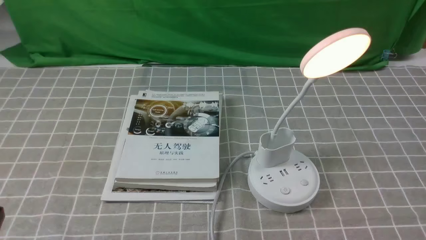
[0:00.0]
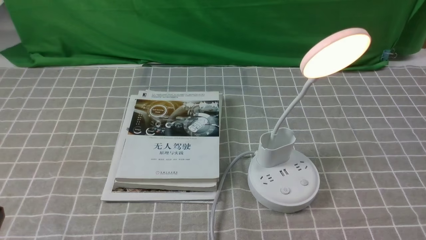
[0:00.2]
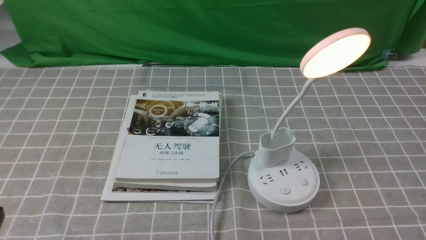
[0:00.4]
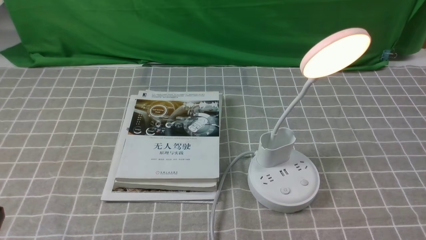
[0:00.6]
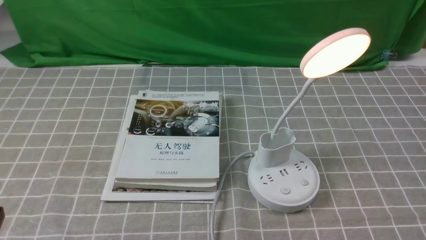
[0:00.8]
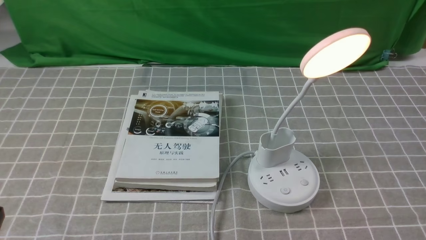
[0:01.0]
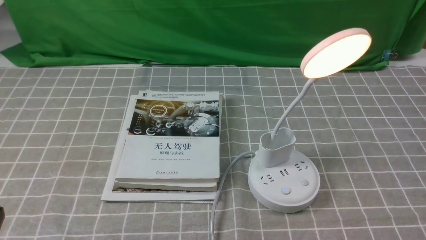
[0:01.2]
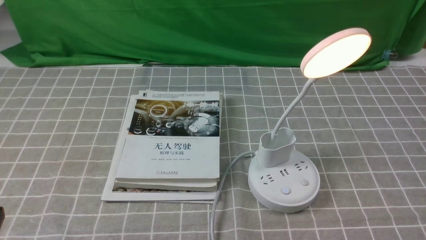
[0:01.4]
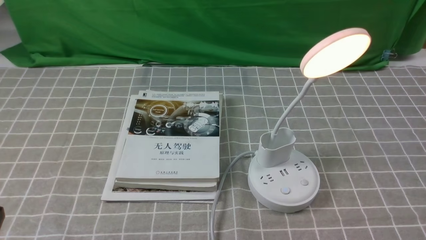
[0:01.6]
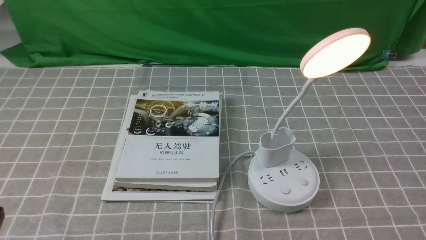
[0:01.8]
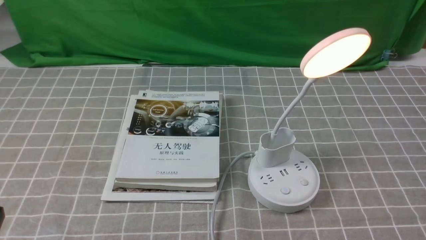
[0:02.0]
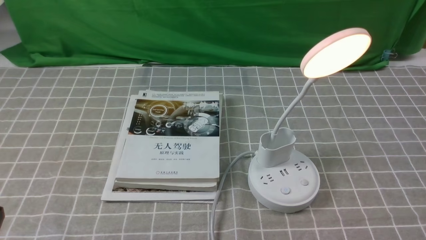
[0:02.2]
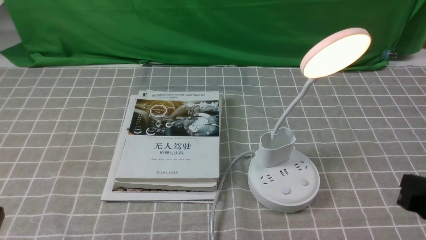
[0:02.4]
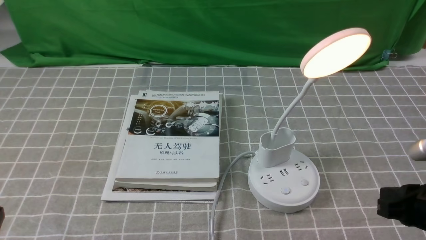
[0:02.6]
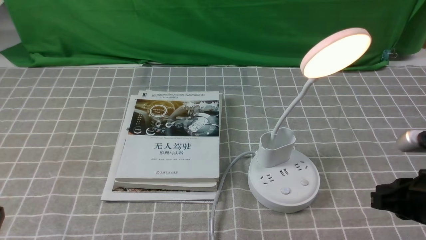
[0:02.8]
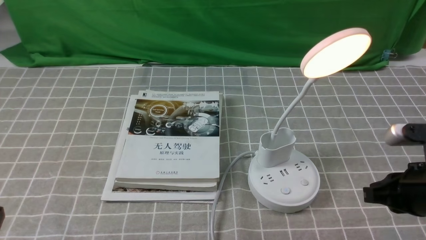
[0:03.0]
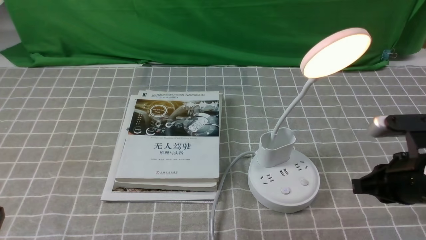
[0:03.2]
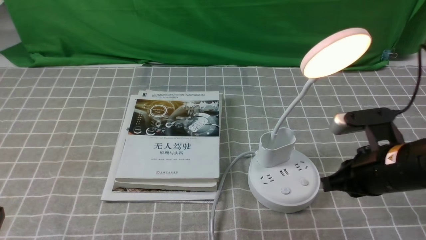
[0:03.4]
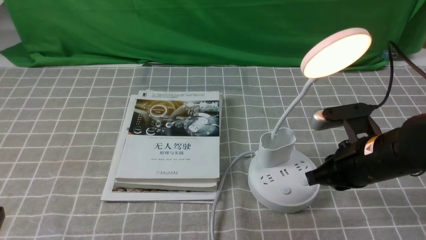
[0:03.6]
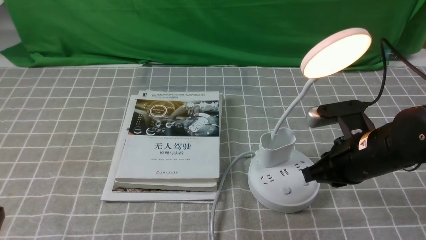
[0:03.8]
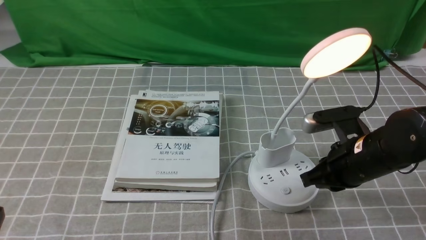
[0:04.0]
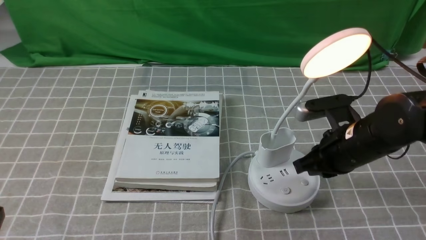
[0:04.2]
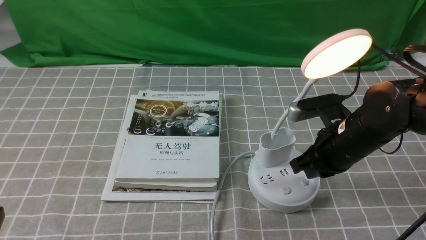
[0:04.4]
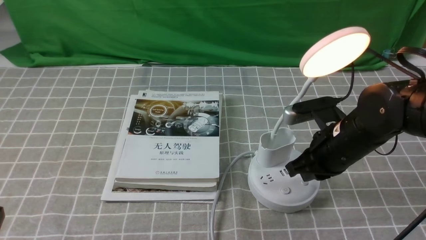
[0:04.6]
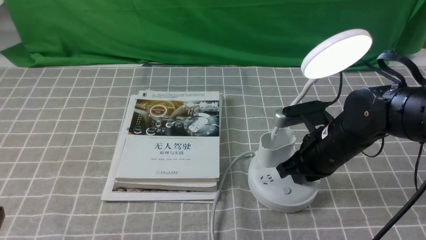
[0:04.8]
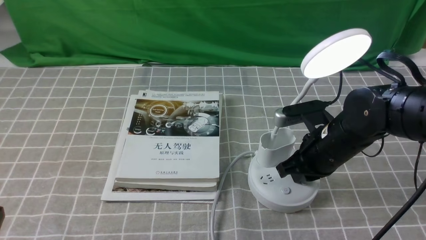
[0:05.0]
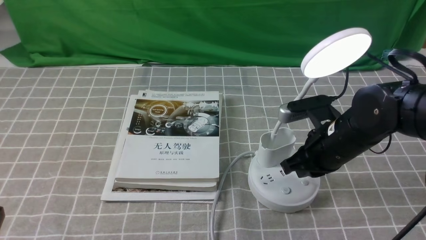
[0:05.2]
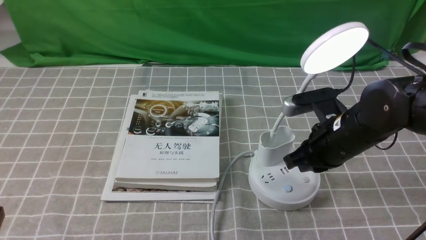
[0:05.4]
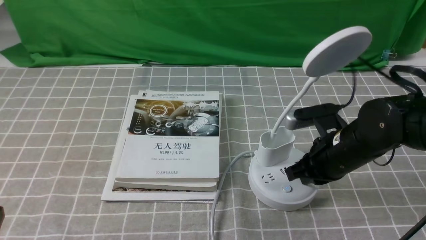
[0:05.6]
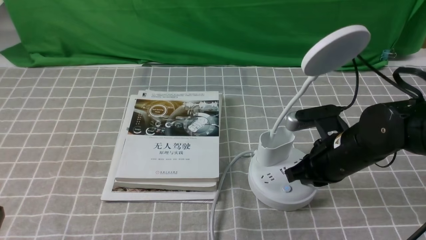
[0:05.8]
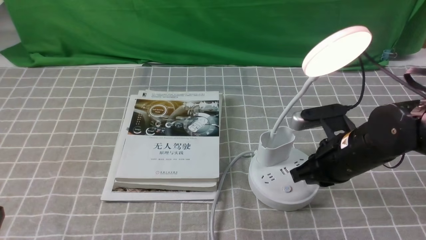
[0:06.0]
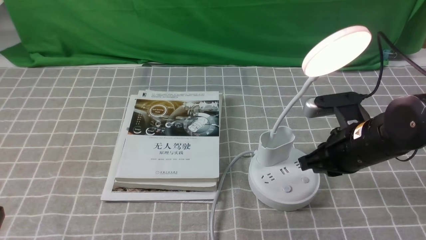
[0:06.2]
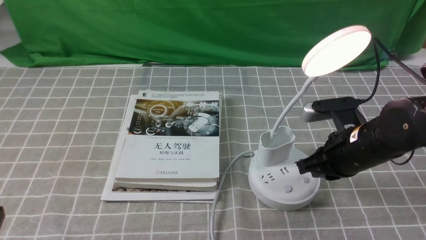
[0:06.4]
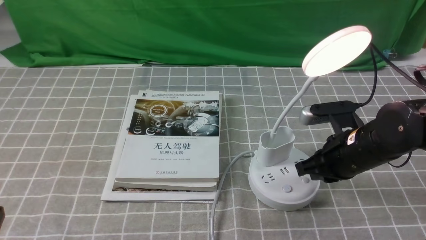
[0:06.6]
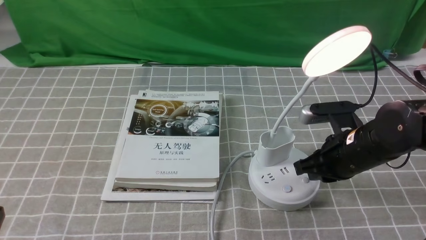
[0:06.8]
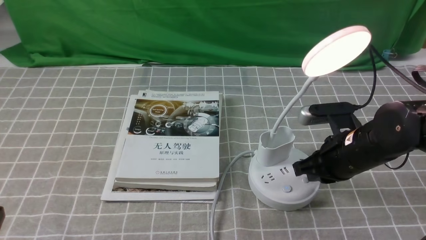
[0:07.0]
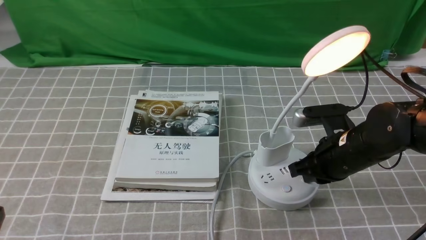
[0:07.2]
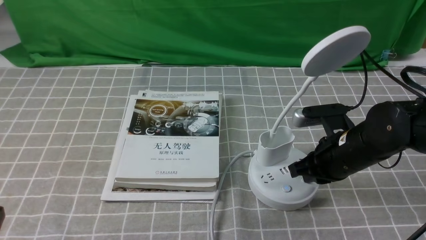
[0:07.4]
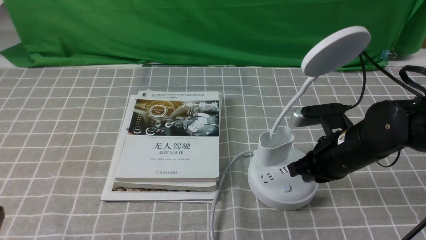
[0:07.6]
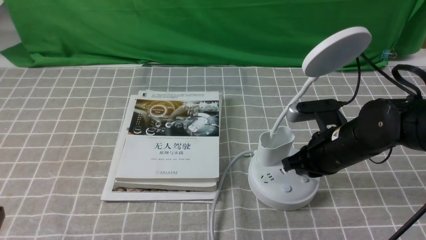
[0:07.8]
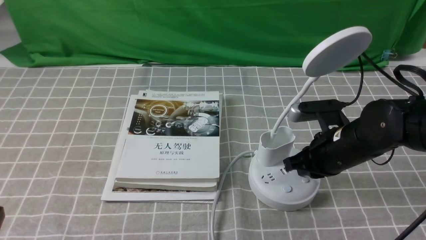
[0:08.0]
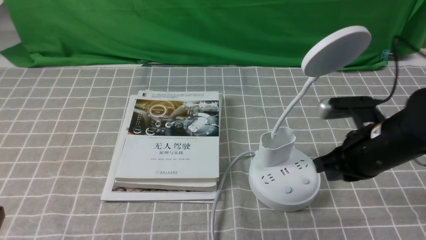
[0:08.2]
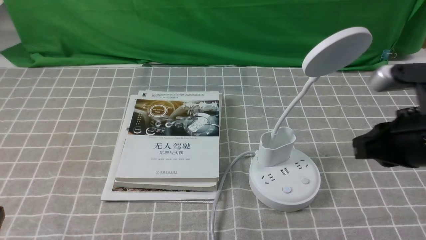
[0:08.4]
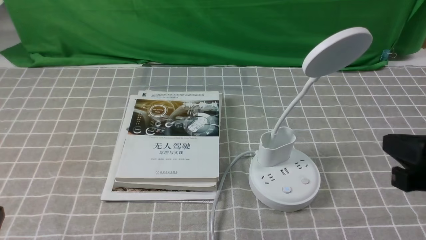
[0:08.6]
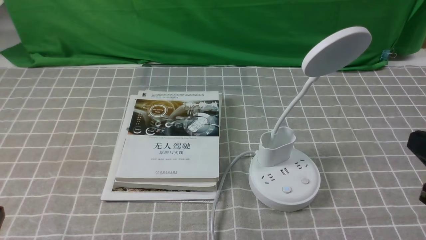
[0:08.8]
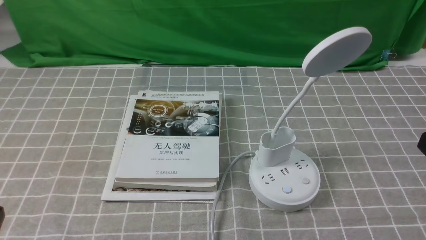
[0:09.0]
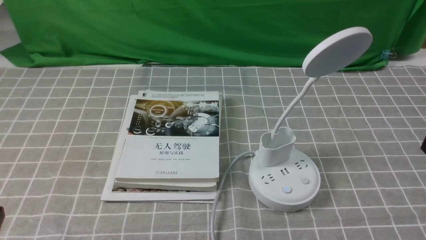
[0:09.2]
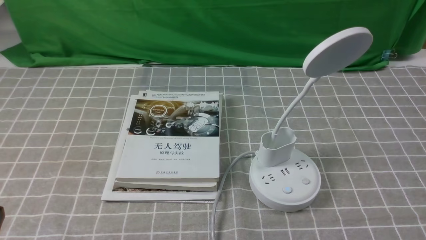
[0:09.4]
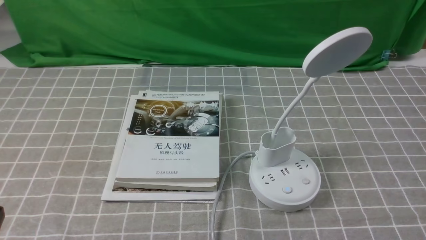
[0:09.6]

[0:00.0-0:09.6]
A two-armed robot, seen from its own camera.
Task of the whole recording: turn off the desk lamp on the grey coffee tablecloth by hand.
Step, 0:00.0 to 0:08.0: use the right arm to press the button switch on the lamp holder.
0:01.6 to 0:03.2: The right gripper travels forward and to the left by about 15 cm, and opens, then closes once more.
0:03.2 to 0:04.8: The right gripper moves forward and to the left, some 10 cm.
0:04.8 to 0:08.0: The grippers make only small movements.
0:08.0 to 0:09.6: The right gripper shifts roughly 25 cm backward and to the right.

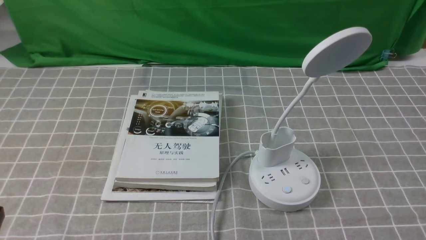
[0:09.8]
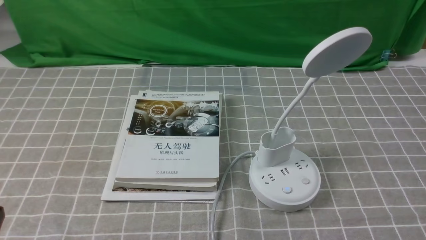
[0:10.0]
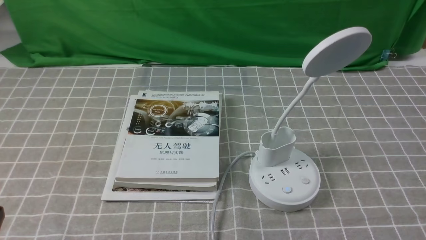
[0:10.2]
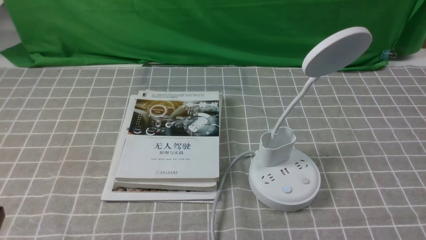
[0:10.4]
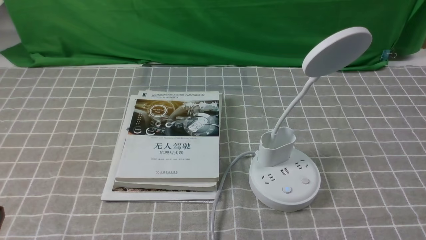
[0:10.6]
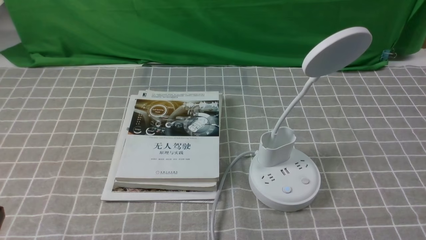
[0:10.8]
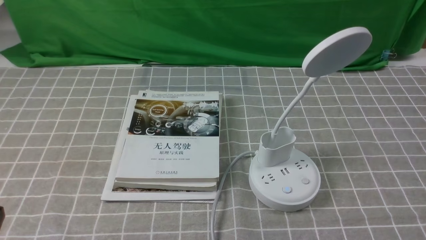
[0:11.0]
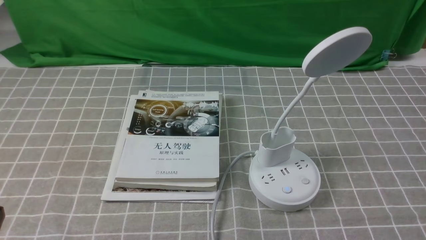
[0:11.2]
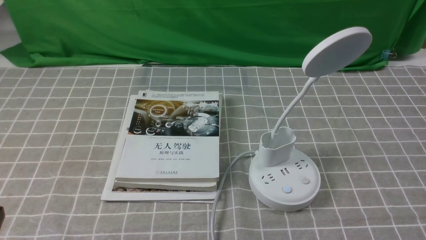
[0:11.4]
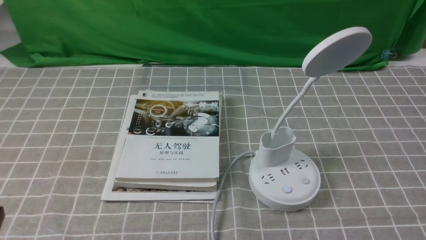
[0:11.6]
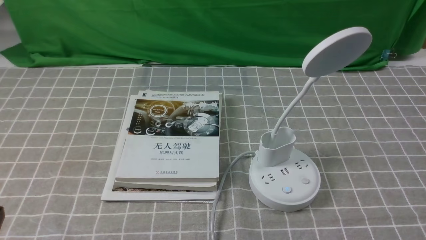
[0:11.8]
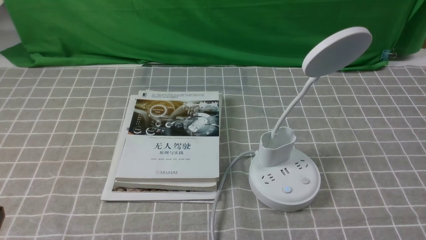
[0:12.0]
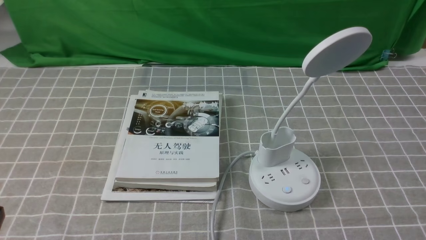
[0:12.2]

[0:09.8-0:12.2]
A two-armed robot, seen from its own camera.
Task of the whole recording: turn off the desk lamp on the grey coffee tablecloth by hand.
0:11.0 to 0:12.2: The two grippers keep their place.
